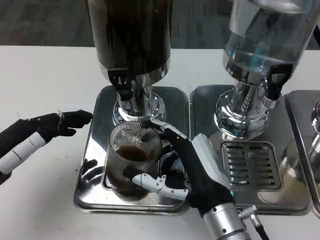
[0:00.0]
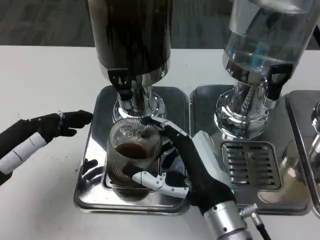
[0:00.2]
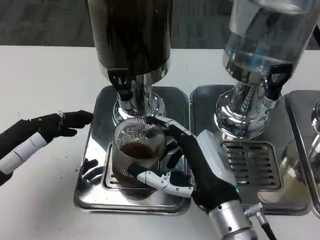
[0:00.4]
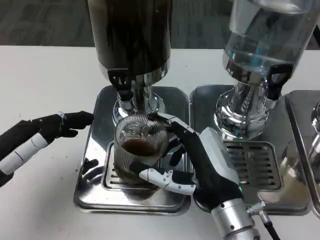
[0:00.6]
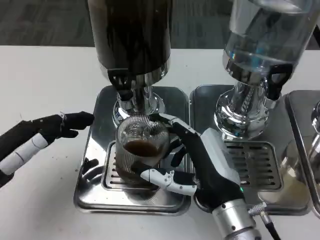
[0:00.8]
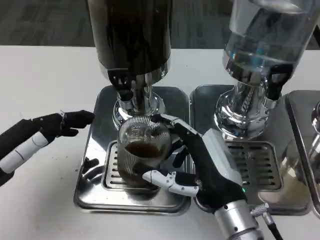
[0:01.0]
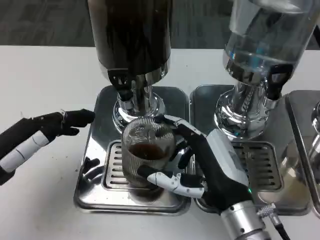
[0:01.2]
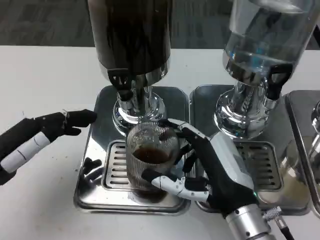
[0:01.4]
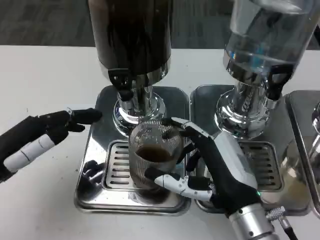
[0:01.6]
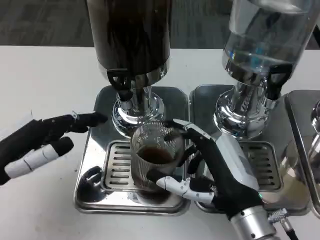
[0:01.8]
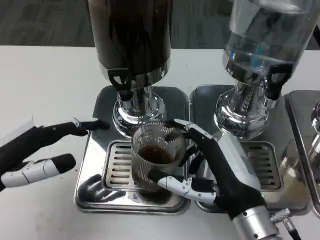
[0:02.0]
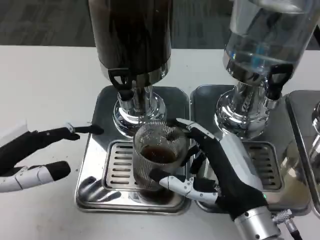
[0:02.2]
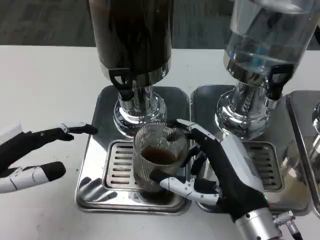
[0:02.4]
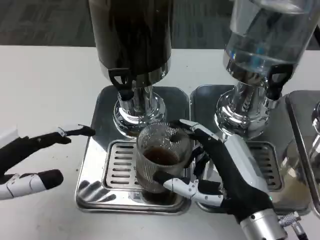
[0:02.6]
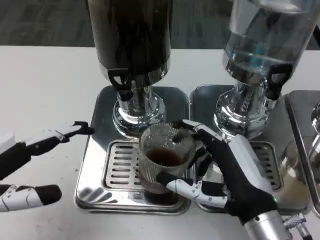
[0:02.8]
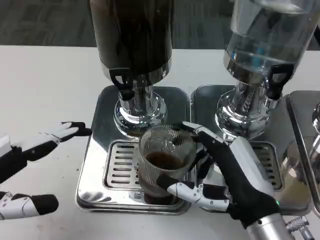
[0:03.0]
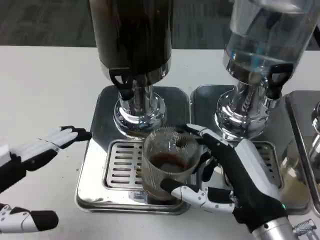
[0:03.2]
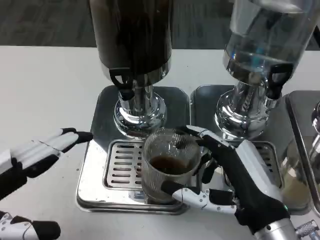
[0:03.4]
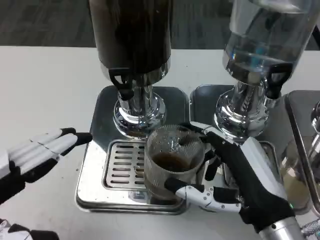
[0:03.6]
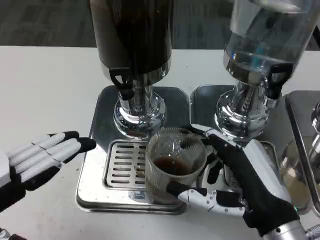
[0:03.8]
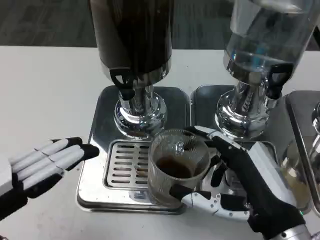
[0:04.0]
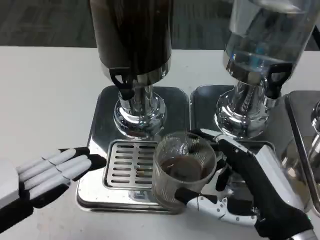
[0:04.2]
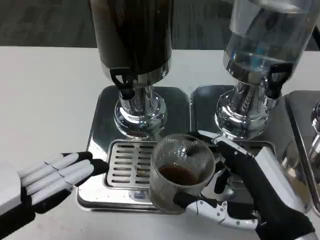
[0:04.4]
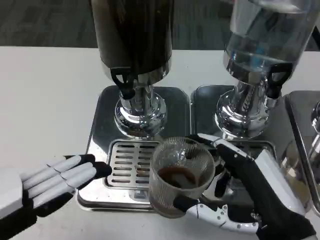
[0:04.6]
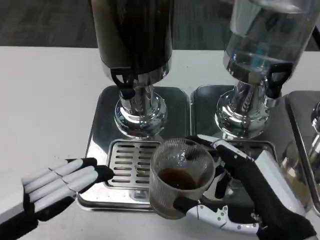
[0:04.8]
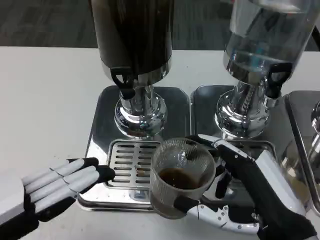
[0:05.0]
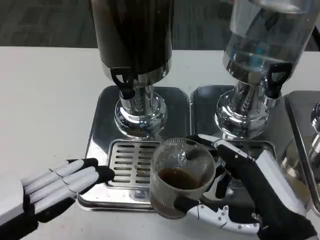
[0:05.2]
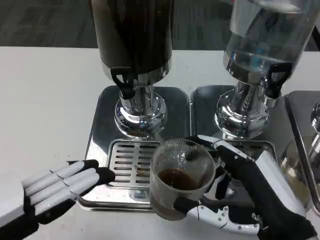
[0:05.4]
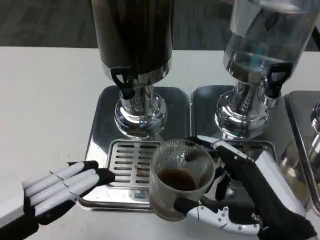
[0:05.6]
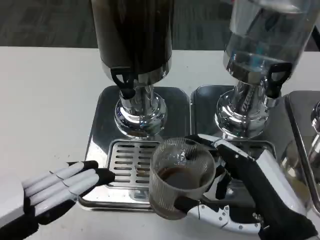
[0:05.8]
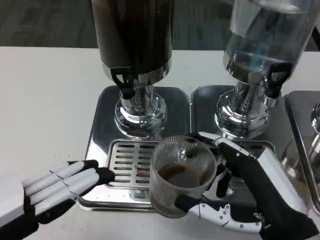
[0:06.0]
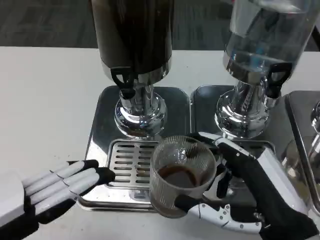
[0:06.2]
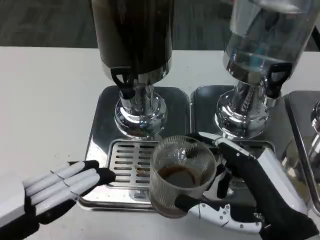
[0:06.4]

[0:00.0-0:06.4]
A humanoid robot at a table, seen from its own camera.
Task of the whole recording: Grasp the cup under the faucet to collect the drink, then remove the cup.
0:00.0 to 0:01.6: The hands move only a little.
0:01.6 to 0:03.2: The left hand goes about 5 cm backward.
0:04.8 to 0:06.4: Both hands stay put.

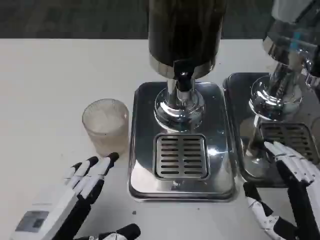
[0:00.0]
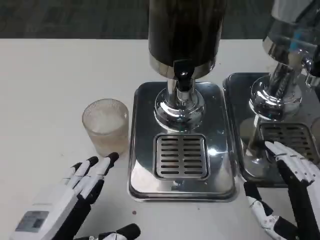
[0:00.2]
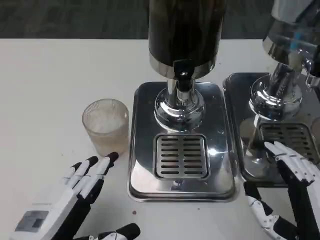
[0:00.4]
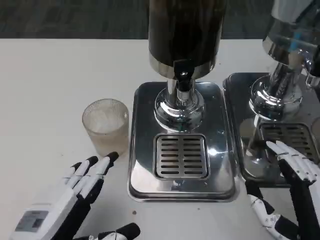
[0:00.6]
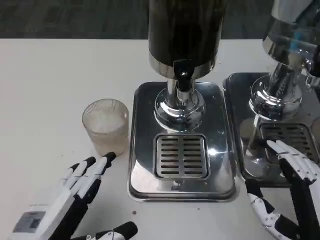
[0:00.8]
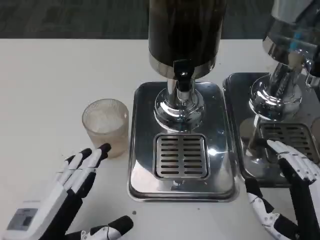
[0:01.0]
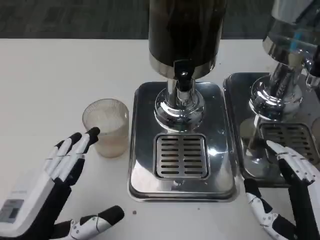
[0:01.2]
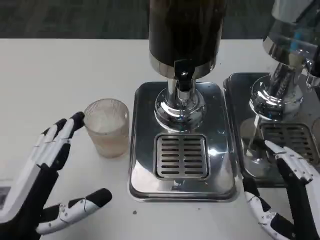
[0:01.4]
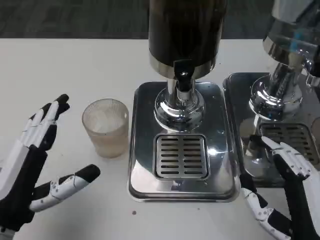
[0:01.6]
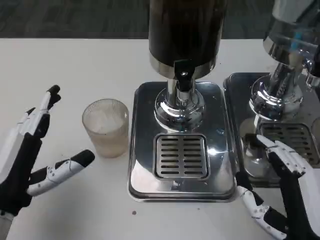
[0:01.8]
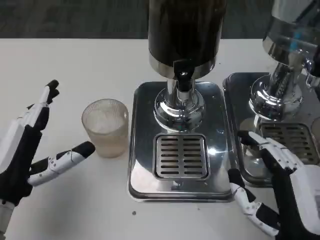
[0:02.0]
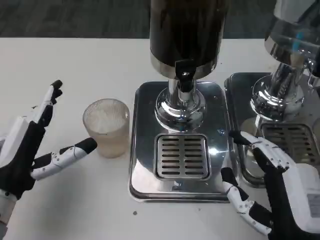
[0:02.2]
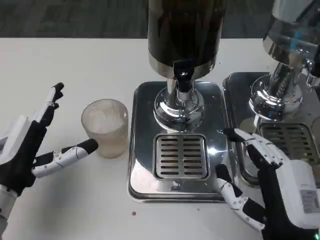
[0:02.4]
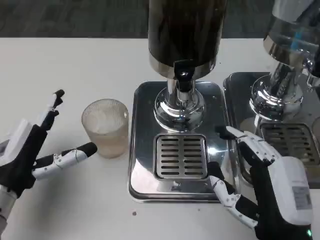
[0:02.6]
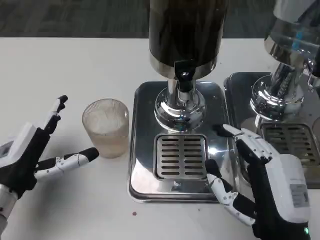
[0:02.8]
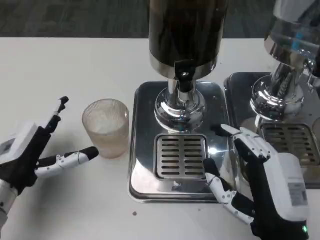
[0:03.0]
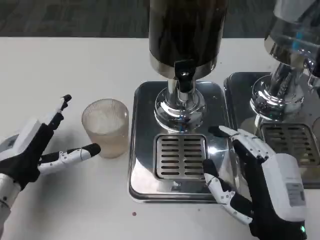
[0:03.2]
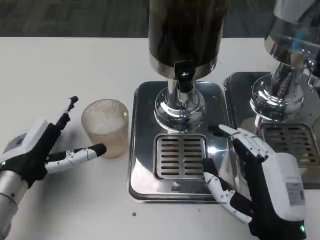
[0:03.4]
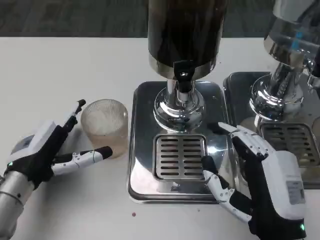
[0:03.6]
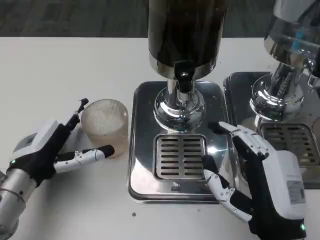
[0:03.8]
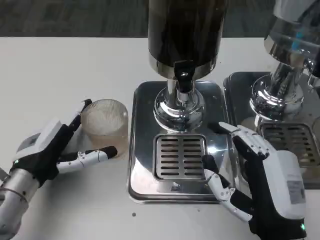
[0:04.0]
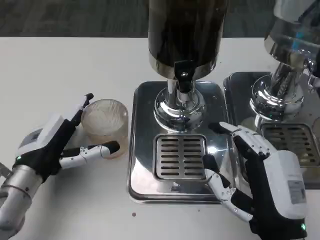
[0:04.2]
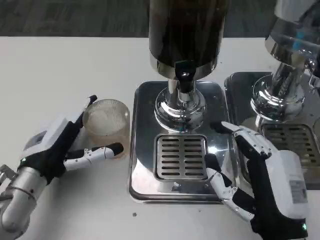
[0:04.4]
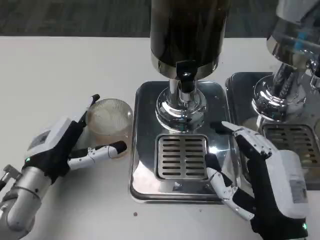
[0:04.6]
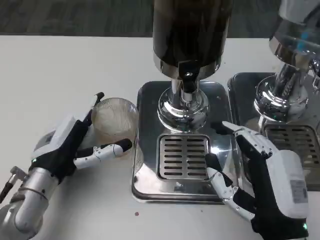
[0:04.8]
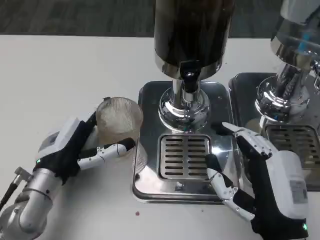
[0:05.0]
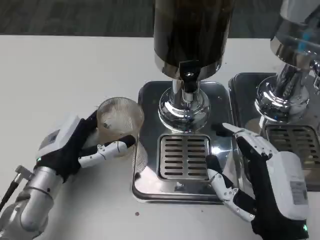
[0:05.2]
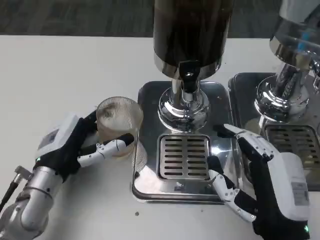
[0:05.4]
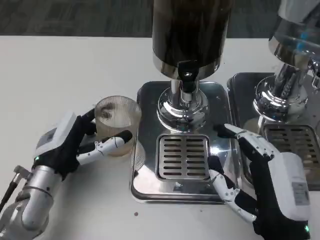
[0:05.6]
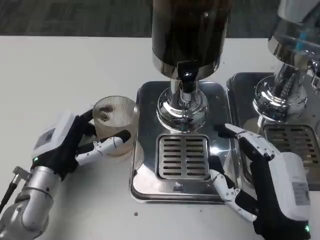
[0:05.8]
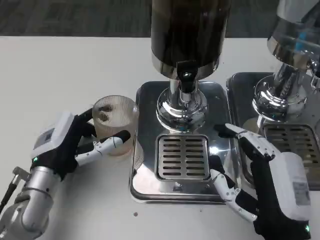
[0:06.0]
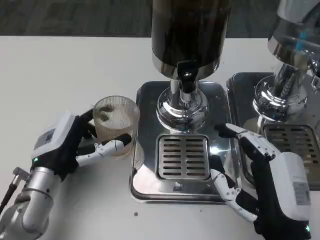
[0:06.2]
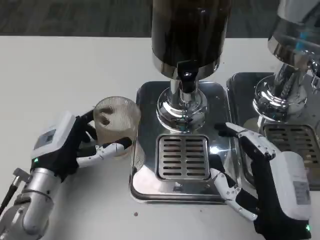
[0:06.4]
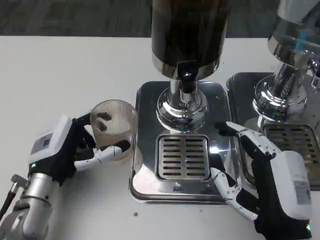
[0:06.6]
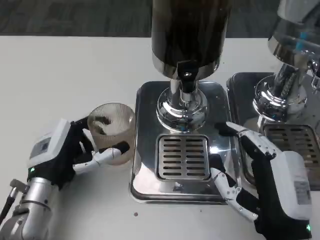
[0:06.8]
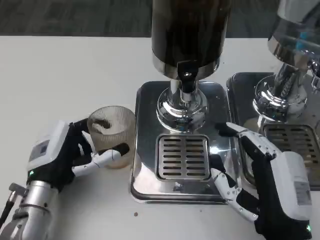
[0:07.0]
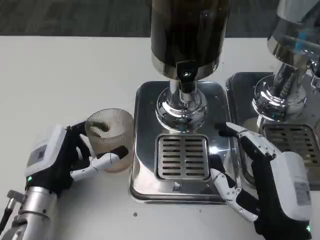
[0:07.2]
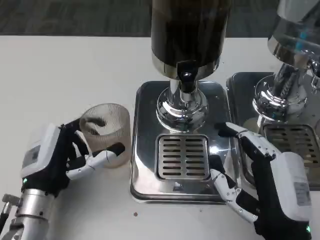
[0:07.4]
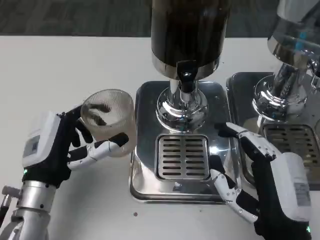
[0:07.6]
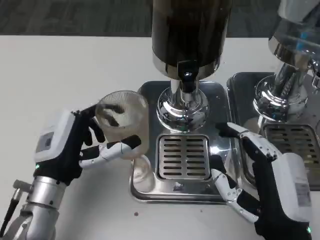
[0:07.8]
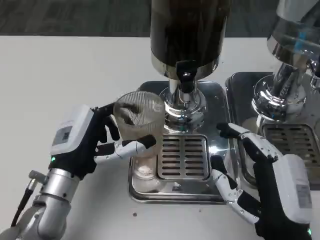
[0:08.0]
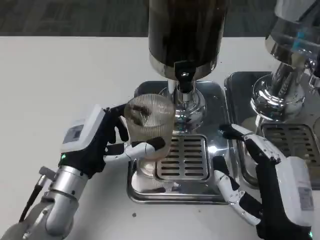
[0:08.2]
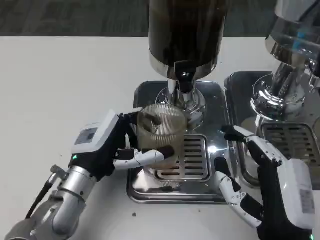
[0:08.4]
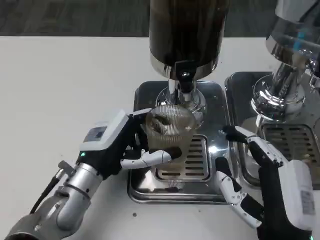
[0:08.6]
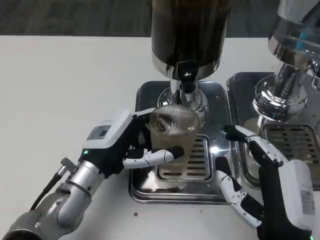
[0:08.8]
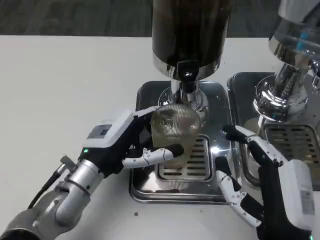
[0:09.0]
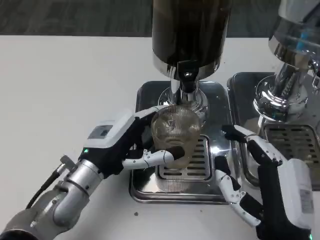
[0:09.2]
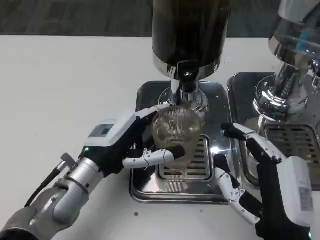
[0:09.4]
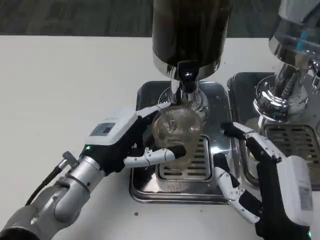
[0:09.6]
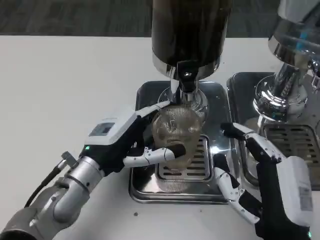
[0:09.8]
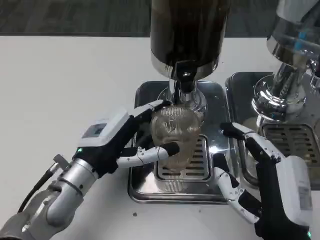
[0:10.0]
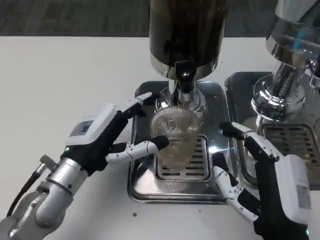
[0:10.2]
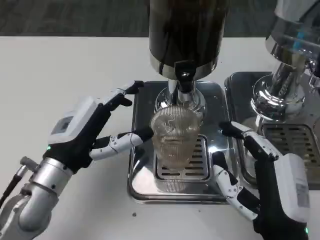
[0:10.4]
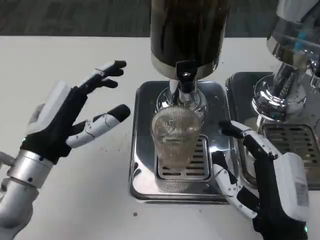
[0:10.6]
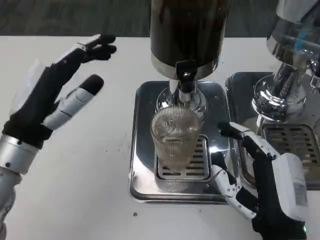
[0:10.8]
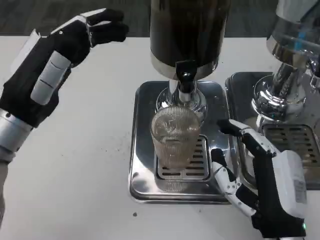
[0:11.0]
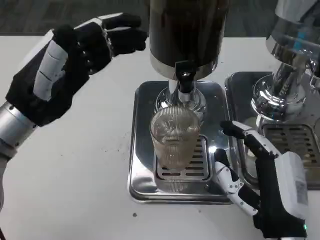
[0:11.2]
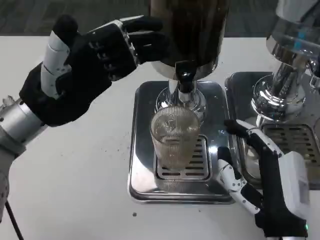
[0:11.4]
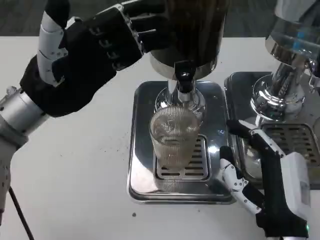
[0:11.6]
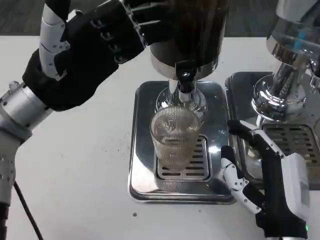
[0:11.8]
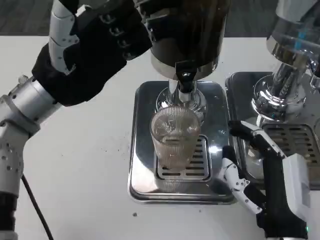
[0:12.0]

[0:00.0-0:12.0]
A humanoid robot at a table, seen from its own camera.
Task of the whole recording: Grasp the cup under the faucet to collect the drink, then remove the cup.
0:00.0 to 0:01.6: The left hand changes place by approximately 5 cm.
0:01.6 to 0:03.0: The left hand goes about 5 cm forward.
0:03.0 to 0:04.4: The hands make only small movements.
0:04.4 to 0:06.0: The hands stay close to where they were, moving slightly.
0:06.0 to 0:07.6: The hands stay close to where they were, moving slightly.
0:07.6 to 0:09.0: The left hand changes place by roughly 5 cm.
0:10.4 to 0:12.0: The left hand is displaced upward and forward by approximately 15 cm.

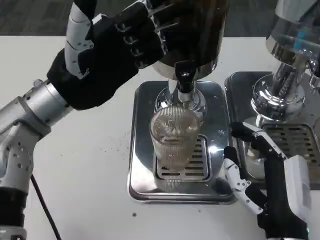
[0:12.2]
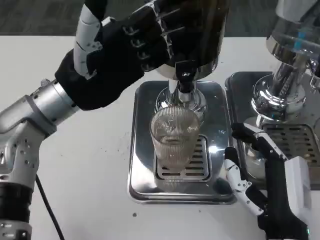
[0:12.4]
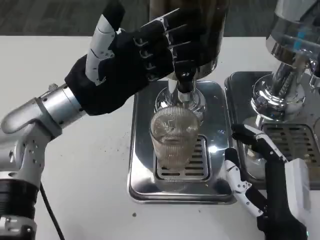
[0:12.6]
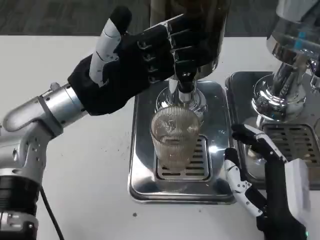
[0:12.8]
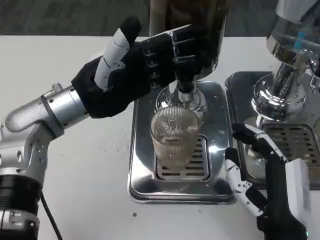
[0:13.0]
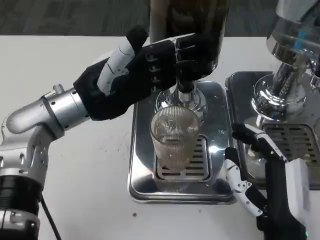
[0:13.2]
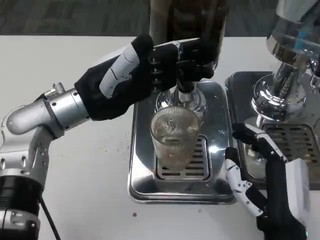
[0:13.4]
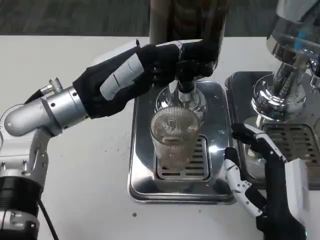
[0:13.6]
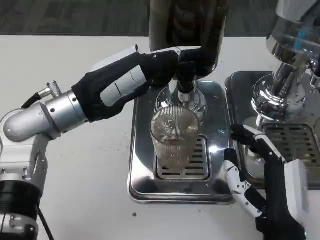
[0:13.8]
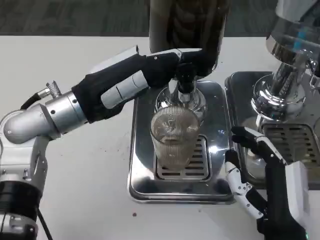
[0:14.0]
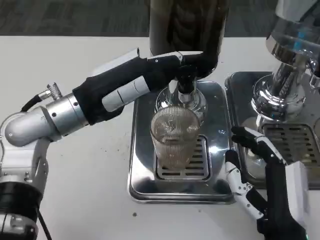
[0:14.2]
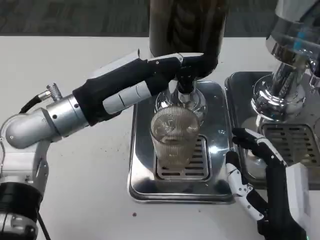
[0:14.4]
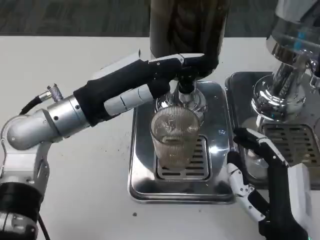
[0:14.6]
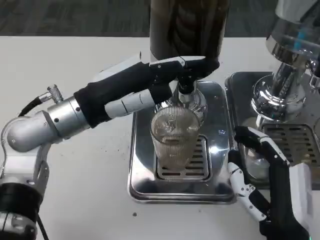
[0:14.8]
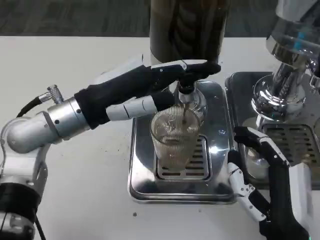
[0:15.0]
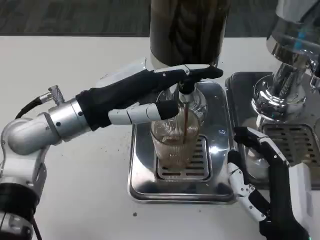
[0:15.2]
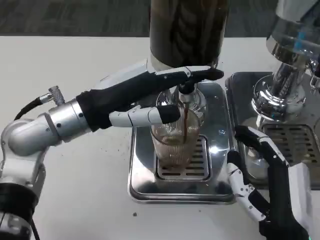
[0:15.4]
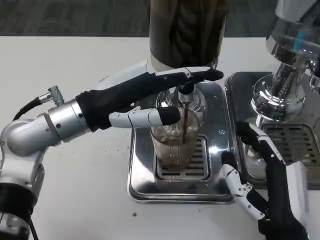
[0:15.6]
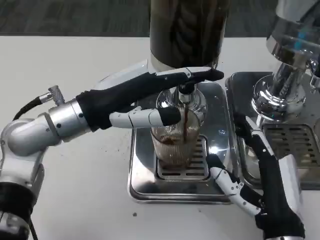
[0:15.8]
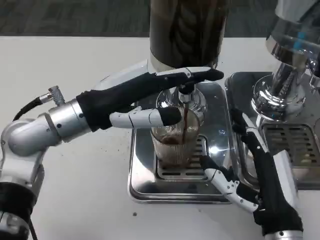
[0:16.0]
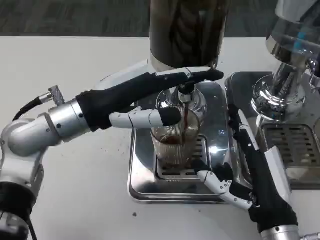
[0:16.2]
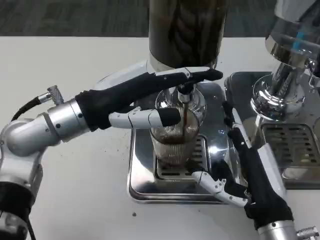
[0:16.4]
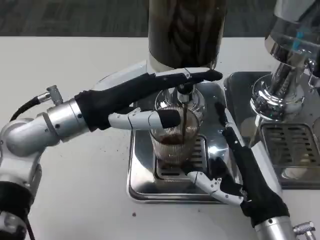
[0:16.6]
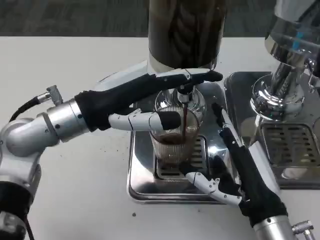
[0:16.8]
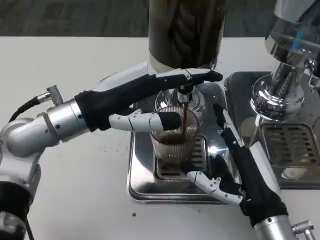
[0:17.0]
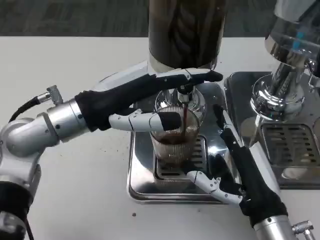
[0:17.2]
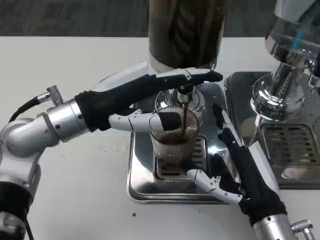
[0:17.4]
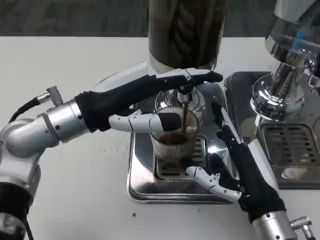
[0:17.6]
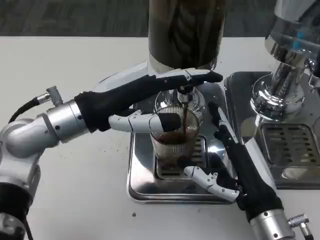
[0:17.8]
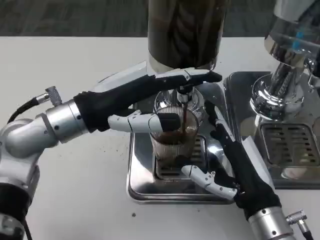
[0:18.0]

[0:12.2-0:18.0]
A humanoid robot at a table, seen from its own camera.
Task of the whole recording: Grasp the cup under the faucet to collect the drink, then remove the cup.
0:13.6 to 0:15.0: The hands move only a little.
0:16.6 to 0:18.0: There are only small adjustments of the hands.
